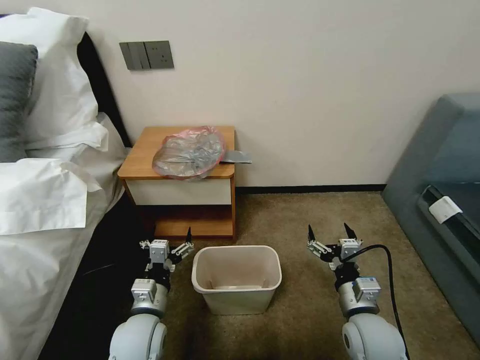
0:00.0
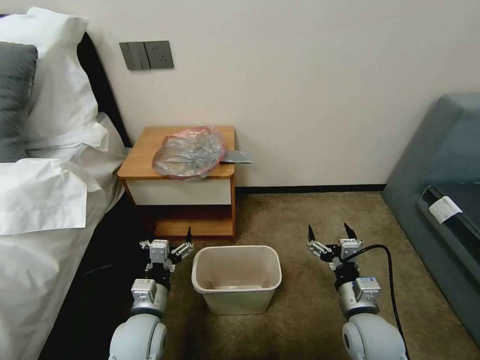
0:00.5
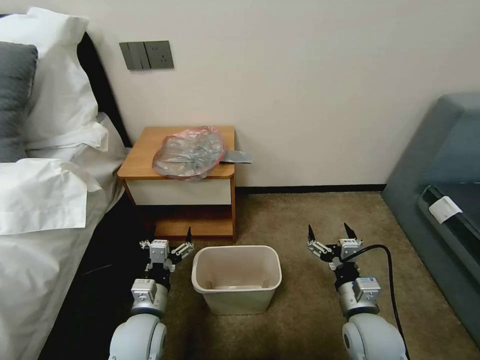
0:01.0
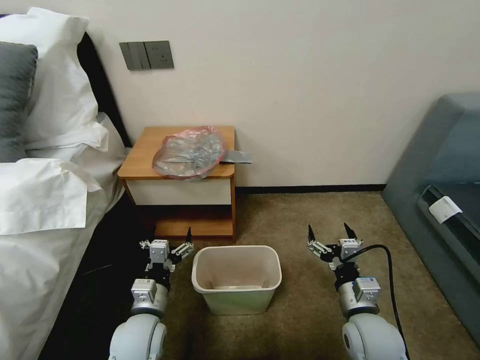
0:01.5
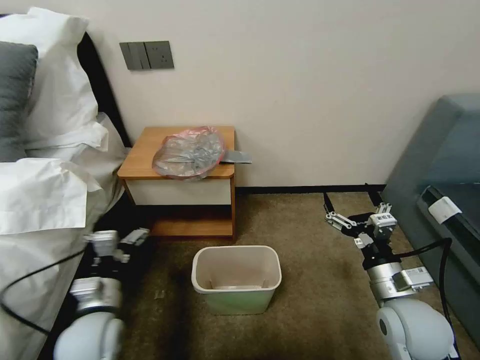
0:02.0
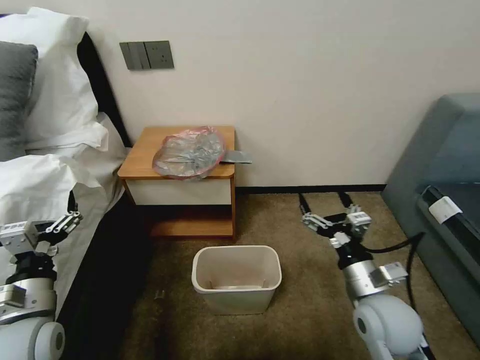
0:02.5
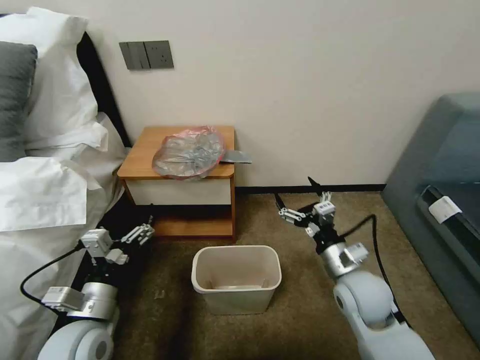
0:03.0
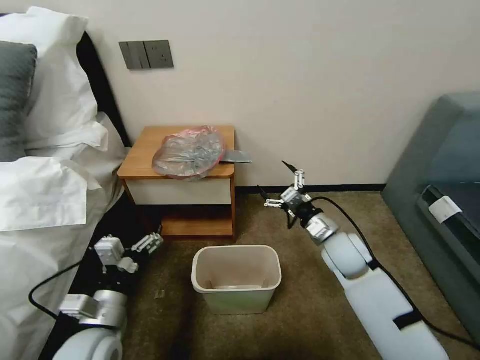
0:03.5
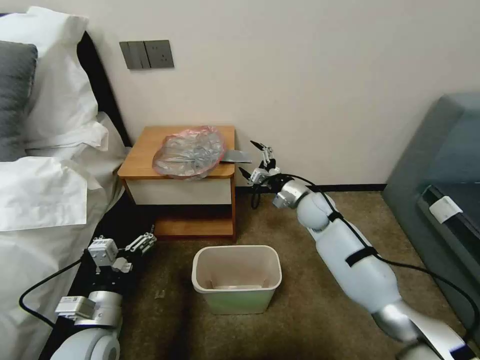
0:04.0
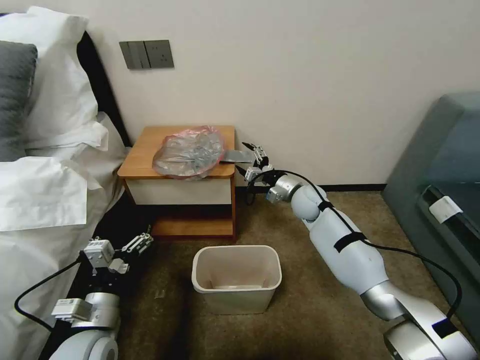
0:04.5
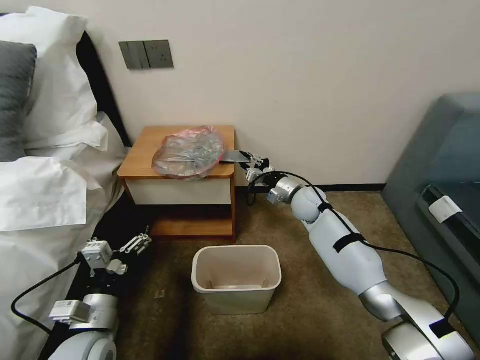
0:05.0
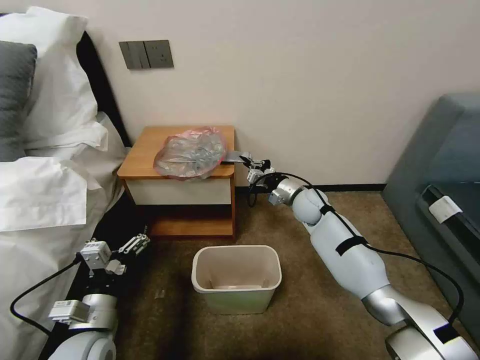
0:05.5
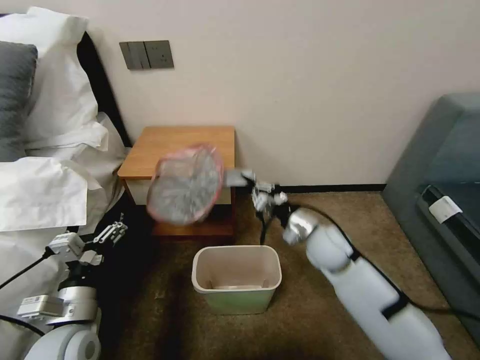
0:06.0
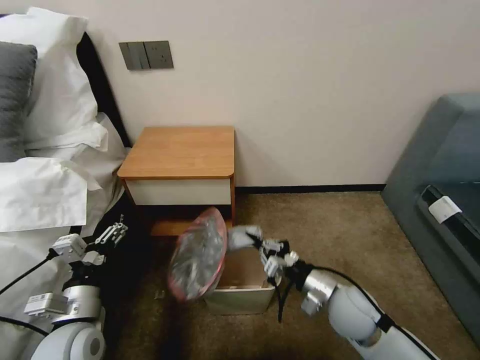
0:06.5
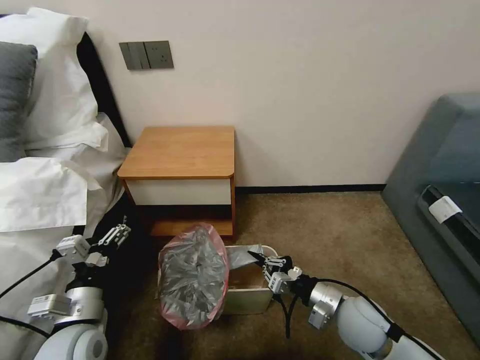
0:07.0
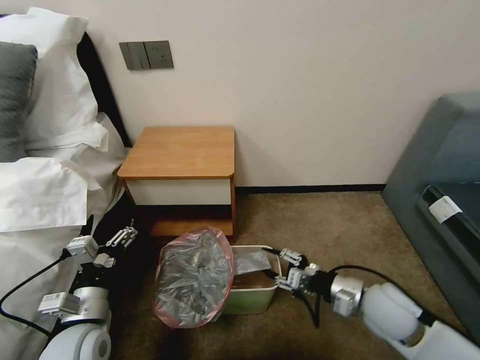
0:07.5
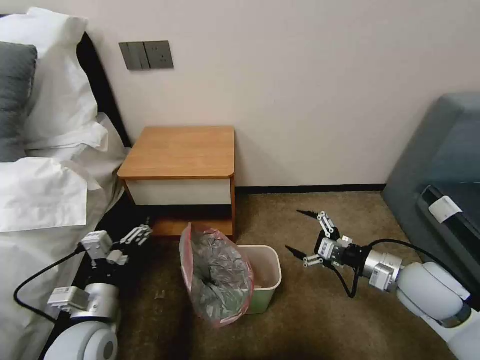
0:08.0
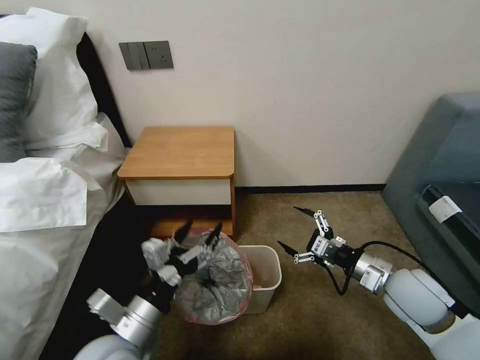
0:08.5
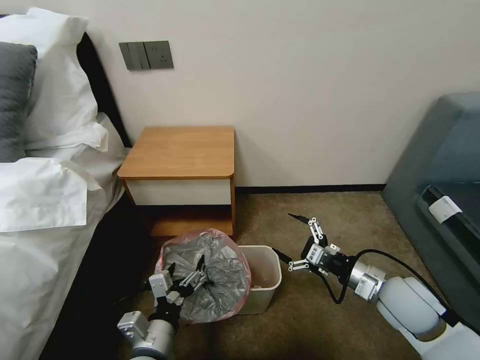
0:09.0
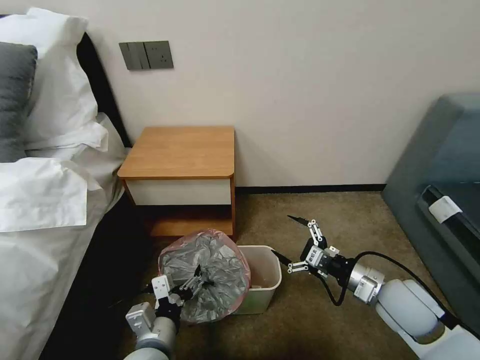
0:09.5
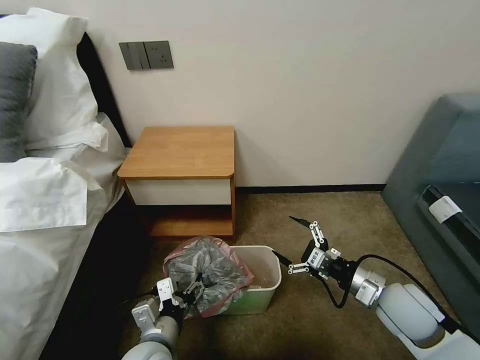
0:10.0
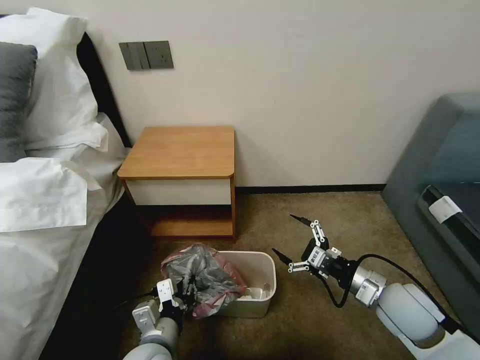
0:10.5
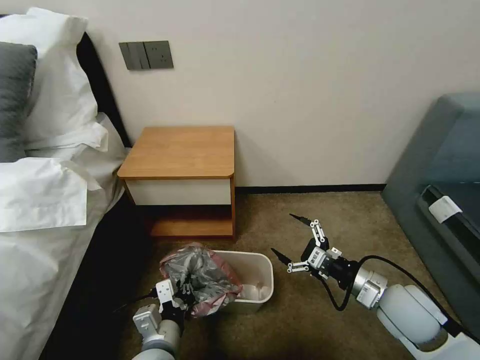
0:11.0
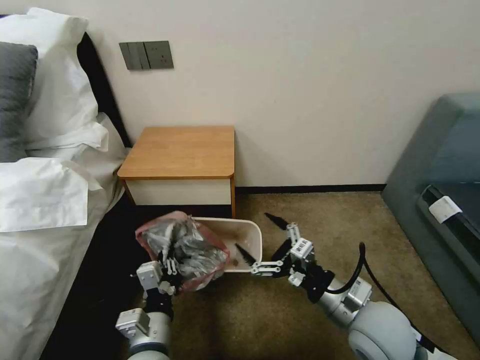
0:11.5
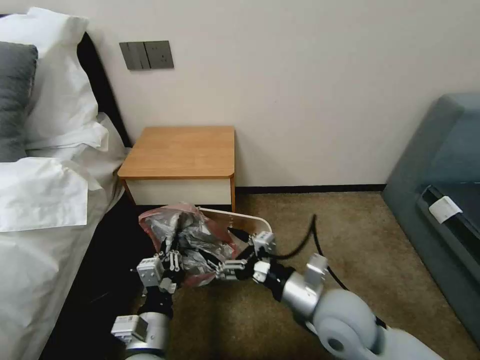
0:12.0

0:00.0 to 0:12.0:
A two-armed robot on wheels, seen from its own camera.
Task of the whole recording: Pick up the garbage bag from the table and place it over the trash can.
0:02.0 to 0:04.0: The right gripper travels forward by roughly 25 cm. Meanwhile the left gripper goes to the left and returns, some 5 cm each way.
0:04.0 to 0:06.0: The right gripper goes about 10 cm backward, and closes up.
0:06.0 to 0:08.0: The right gripper shifts about 20 cm to the right and backward, and opens its fingers.
0:08.0 to 0:10.0: The right gripper changes place by roughly 5 cm, while the left gripper moves to the right and downward, about 10 cm.
0:10.0 to 0:12.0: The left gripper closes its fingers. The right gripper is displaced to the left by roughly 15 cm.

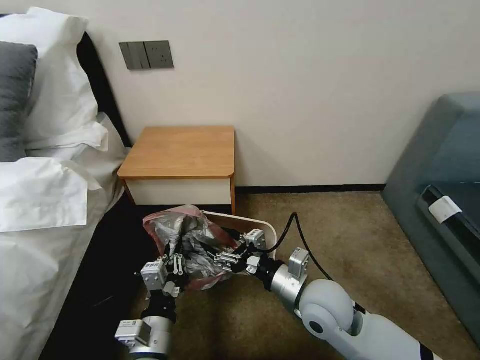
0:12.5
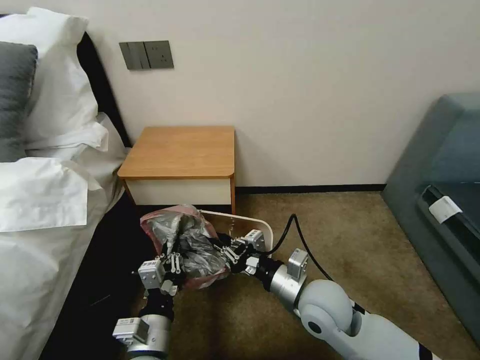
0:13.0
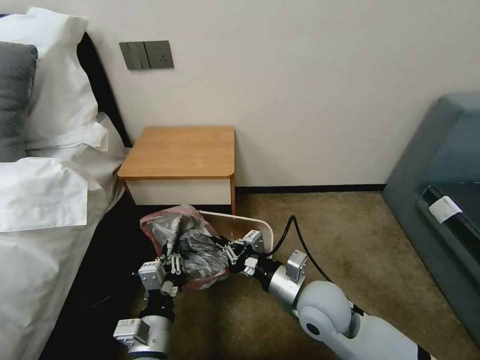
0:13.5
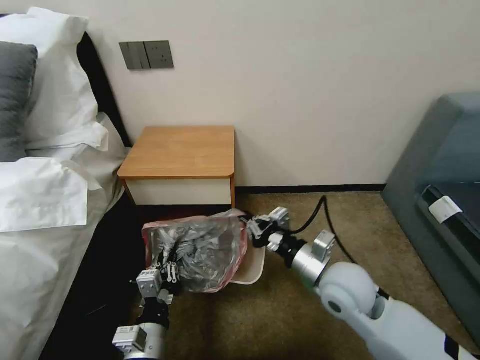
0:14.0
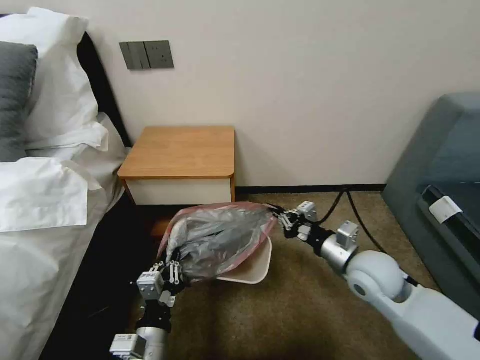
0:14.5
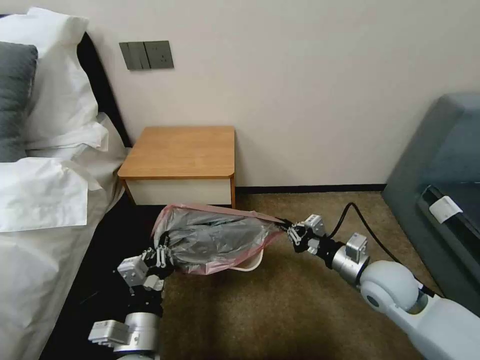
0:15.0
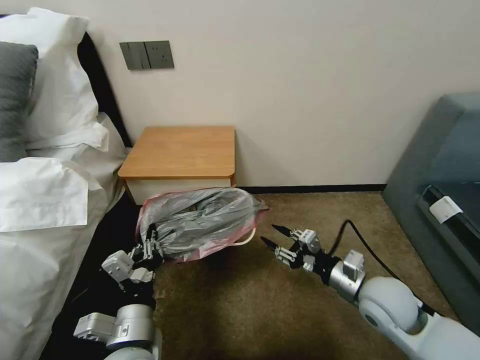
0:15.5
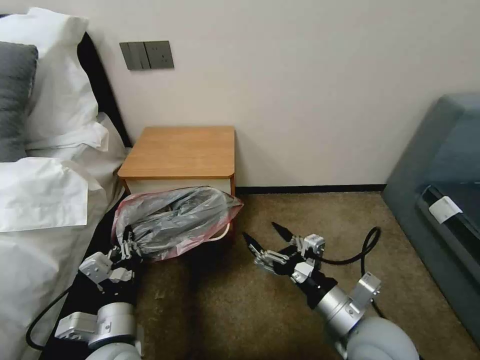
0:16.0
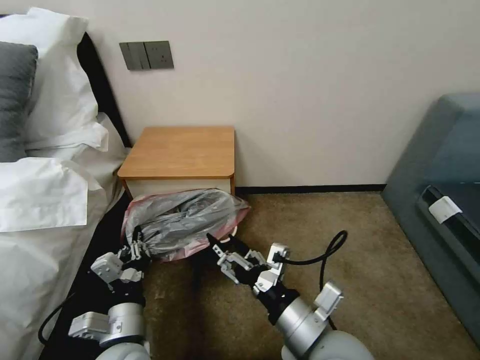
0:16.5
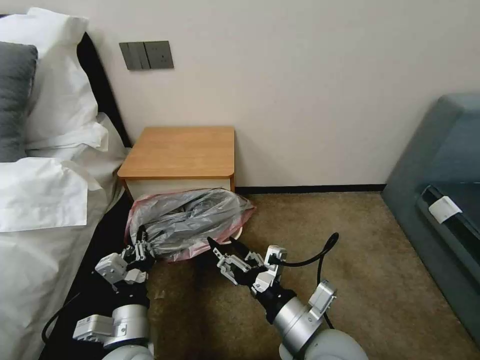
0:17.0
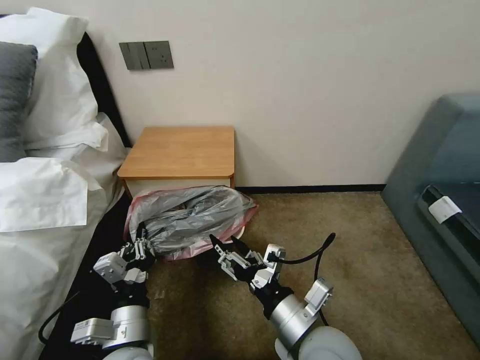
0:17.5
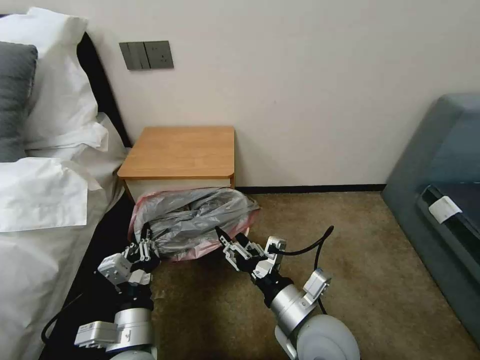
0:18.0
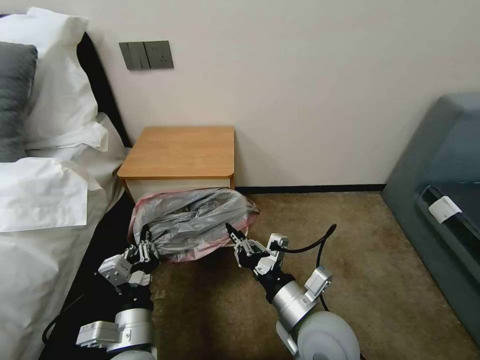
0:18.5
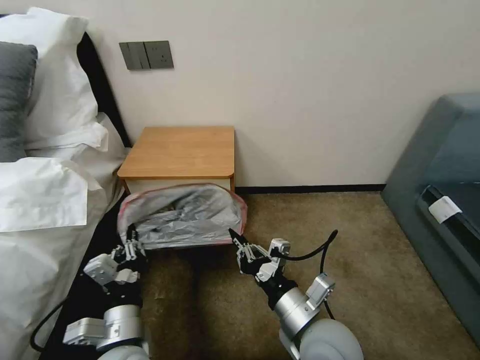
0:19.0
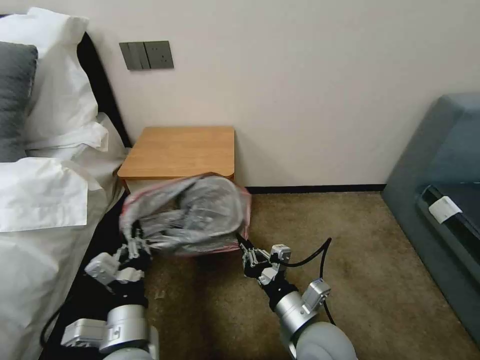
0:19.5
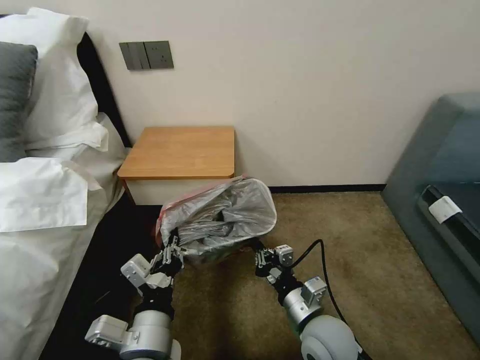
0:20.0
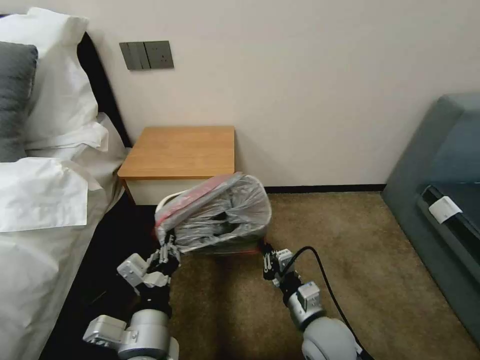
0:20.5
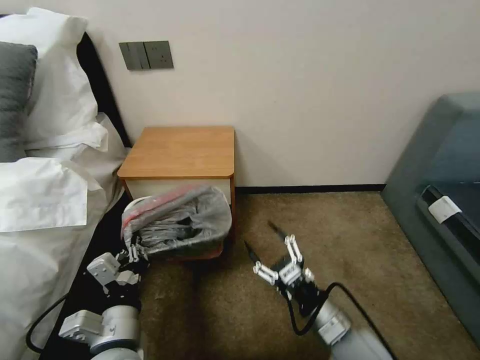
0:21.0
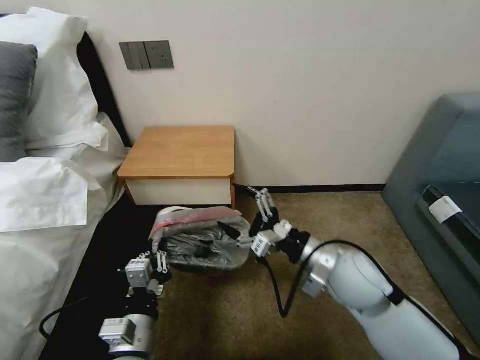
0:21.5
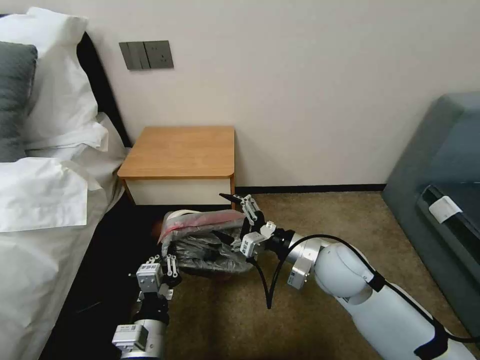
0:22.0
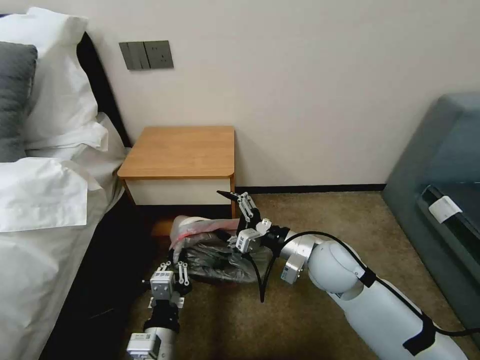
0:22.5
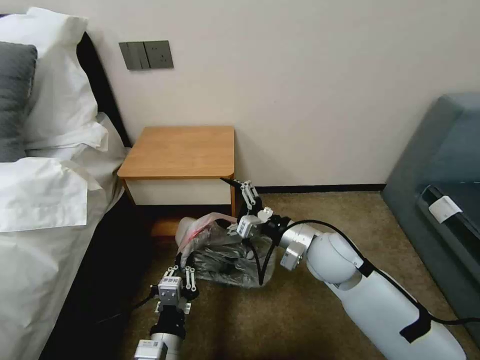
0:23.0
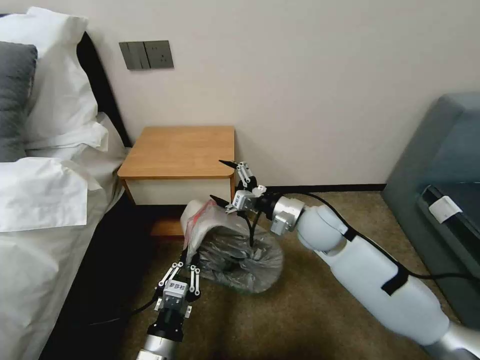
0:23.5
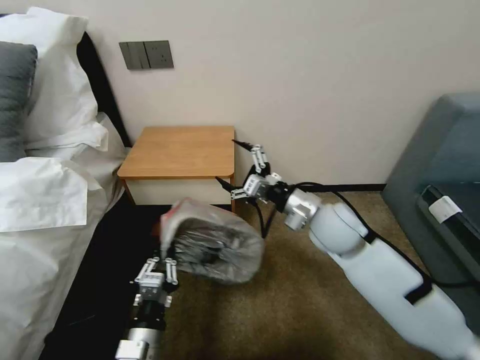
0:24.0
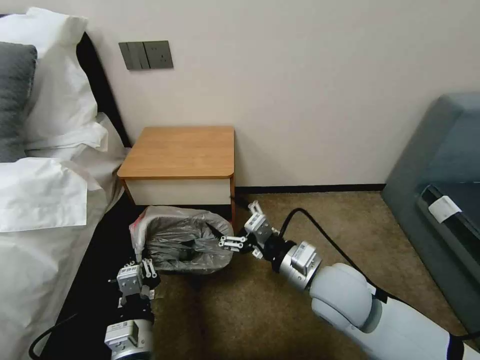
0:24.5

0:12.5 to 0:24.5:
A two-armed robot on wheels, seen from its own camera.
Task of the whole recording: Pick up the garbage bag from the table and place it over the trash can.
0:12.5 to 0:14.5: The right gripper travels to the right and forward by about 10 cm, and closes.
0:14.5 to 0:16.5: The right gripper heads backward and to the left, covering roughly 20 cm, and opens up; the left gripper moves about 5 cm.
0:16.5 to 0:18.5: The right gripper closes up.
0:18.5 to 0:20.5: The right gripper shifts approximately 10 cm downward. The left gripper moves roughly 5 cm.
0:20.5 to 0:22.5: The left gripper moves downward, some 5 cm, while the right gripper goes approximately 15 cm forward and upward, and opens.
0:22.5 to 0:24.5: The right gripper heads backward, covering roughly 5 cm.

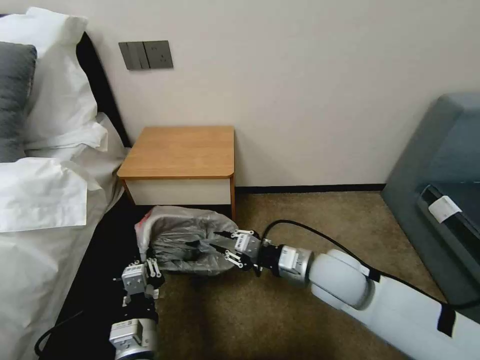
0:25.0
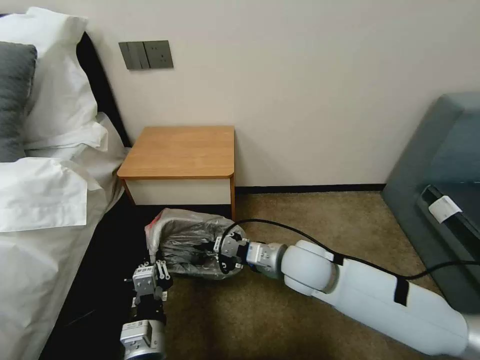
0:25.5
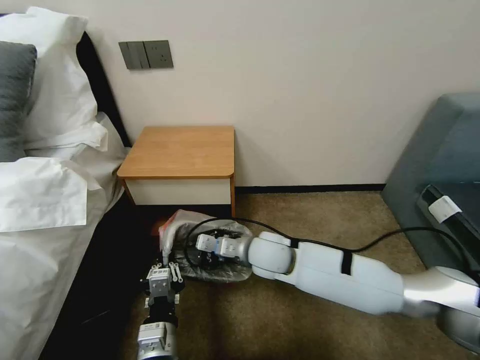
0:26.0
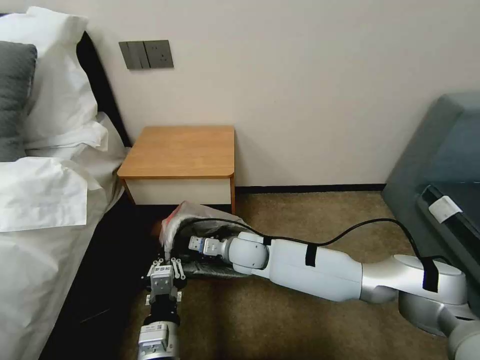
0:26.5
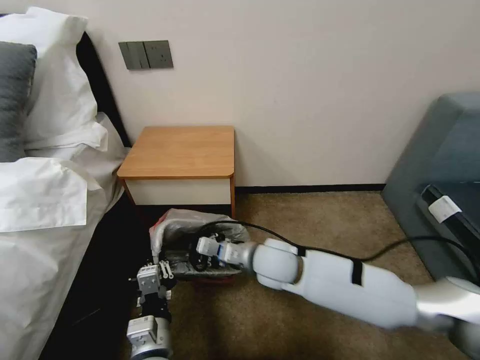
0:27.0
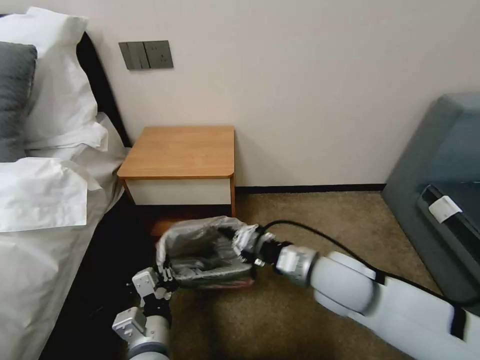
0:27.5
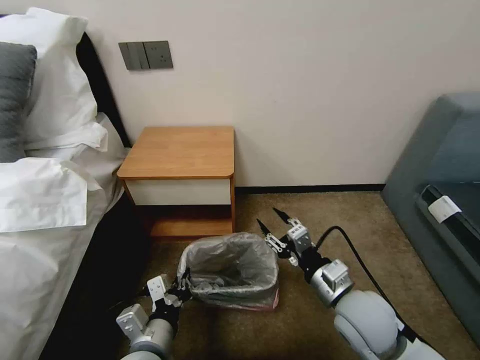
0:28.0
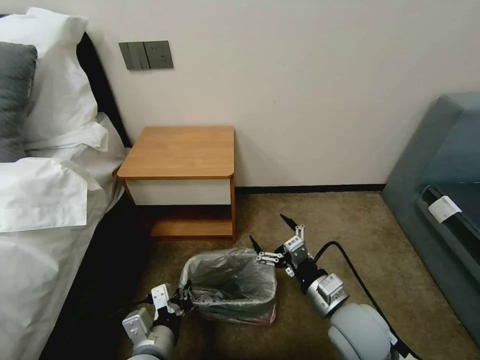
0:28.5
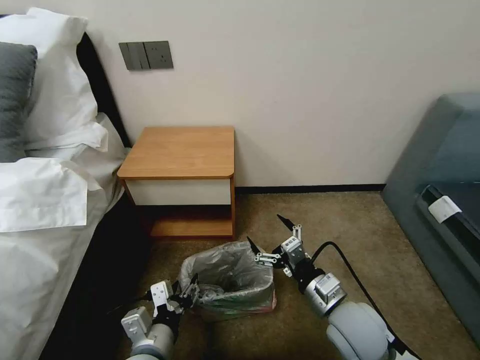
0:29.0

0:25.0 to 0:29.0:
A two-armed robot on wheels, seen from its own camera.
Task of the whole recording: Pick up the garbage bag from the table and place it over the trash can.
0:25.0 to 0:27.0: The right gripper moves to the left, some 10 cm.
0:27.0 to 0:29.0: The right gripper travels to the right and backward by some 15 cm, and opens up, while the left gripper opens its fingers.
